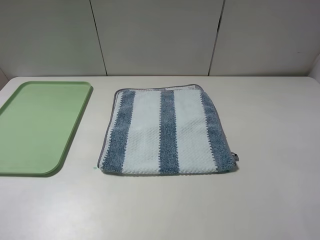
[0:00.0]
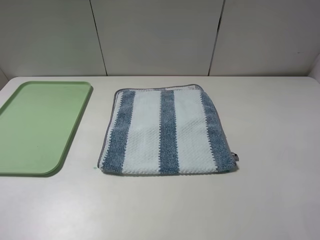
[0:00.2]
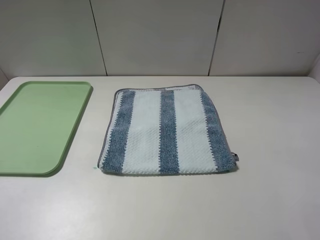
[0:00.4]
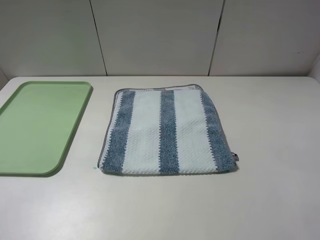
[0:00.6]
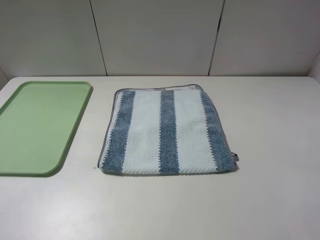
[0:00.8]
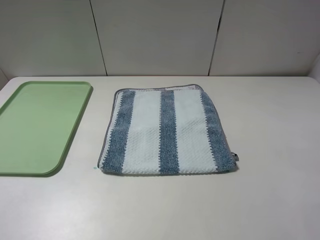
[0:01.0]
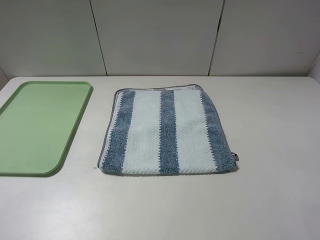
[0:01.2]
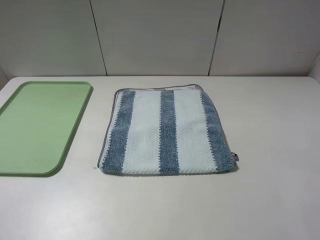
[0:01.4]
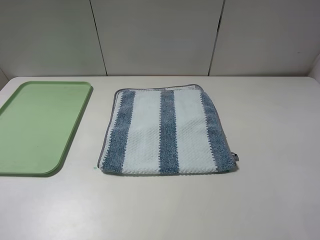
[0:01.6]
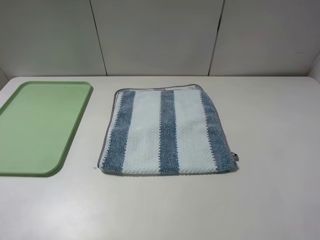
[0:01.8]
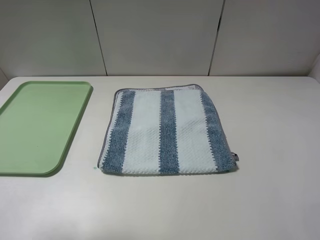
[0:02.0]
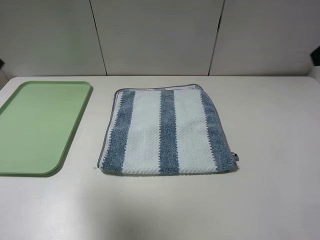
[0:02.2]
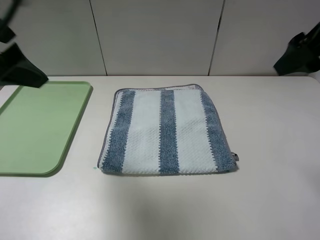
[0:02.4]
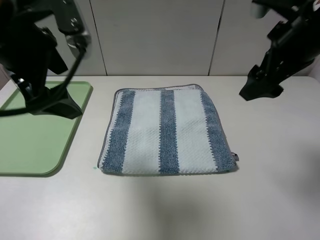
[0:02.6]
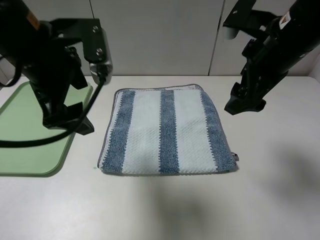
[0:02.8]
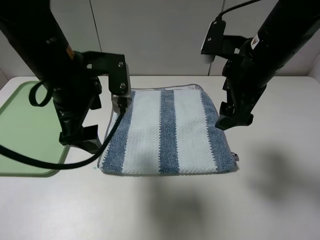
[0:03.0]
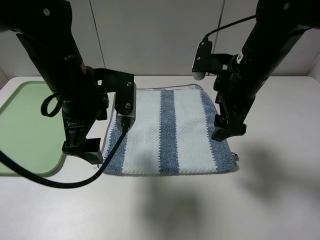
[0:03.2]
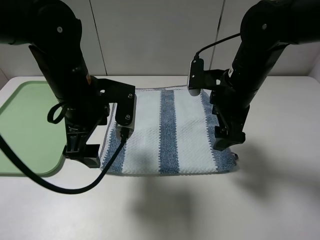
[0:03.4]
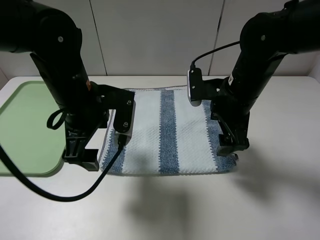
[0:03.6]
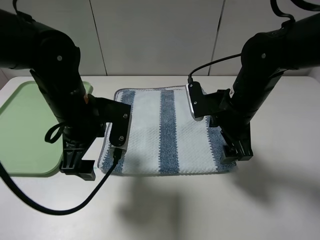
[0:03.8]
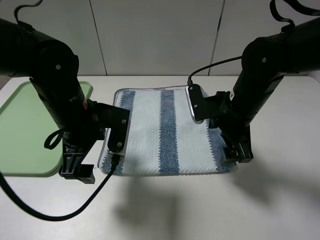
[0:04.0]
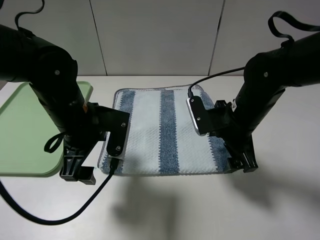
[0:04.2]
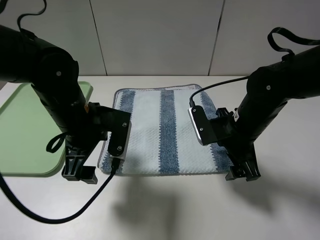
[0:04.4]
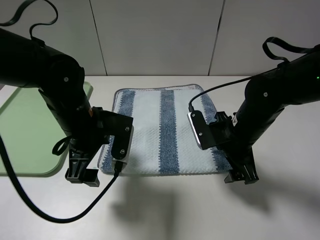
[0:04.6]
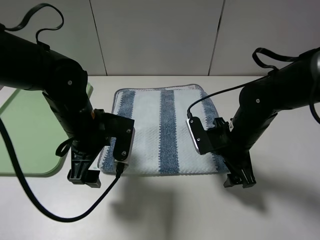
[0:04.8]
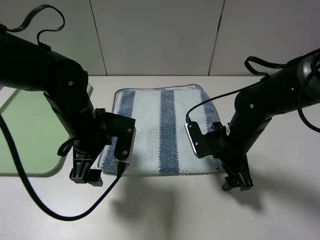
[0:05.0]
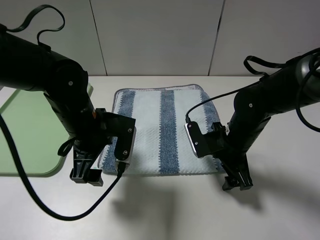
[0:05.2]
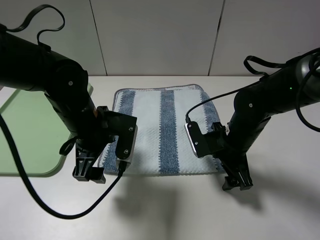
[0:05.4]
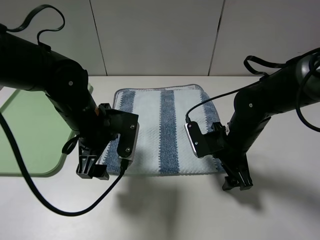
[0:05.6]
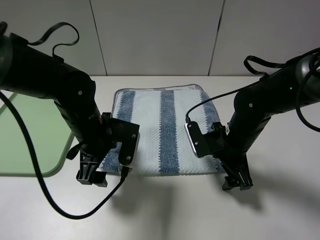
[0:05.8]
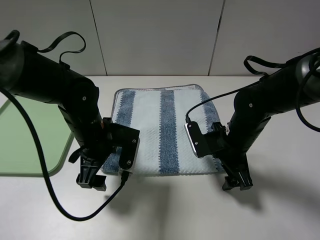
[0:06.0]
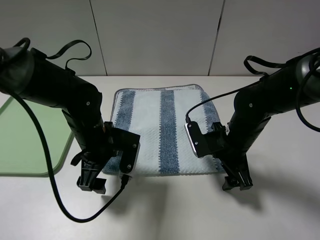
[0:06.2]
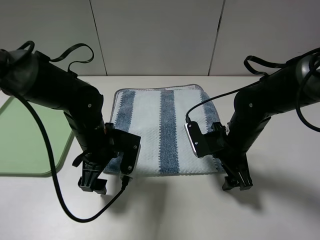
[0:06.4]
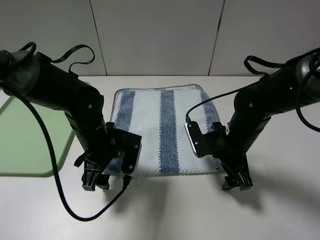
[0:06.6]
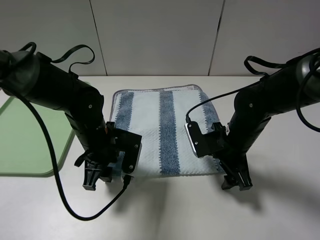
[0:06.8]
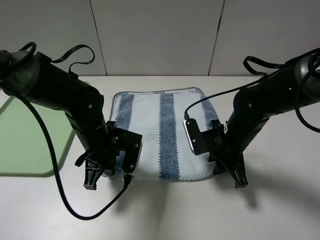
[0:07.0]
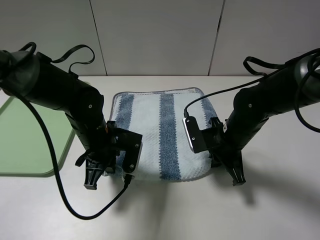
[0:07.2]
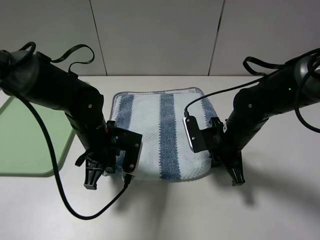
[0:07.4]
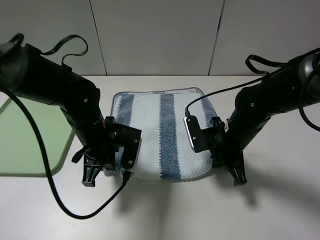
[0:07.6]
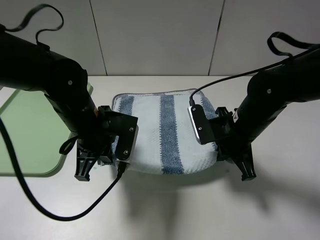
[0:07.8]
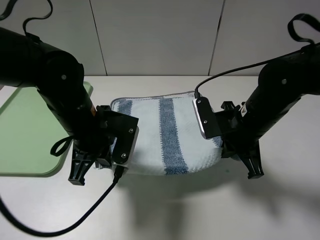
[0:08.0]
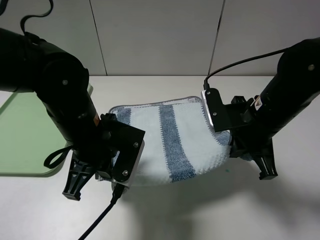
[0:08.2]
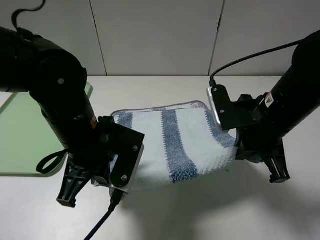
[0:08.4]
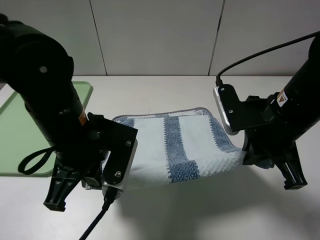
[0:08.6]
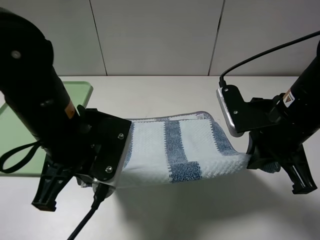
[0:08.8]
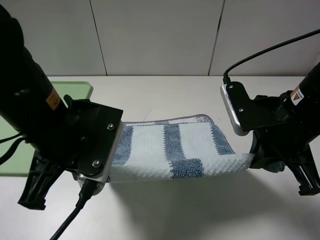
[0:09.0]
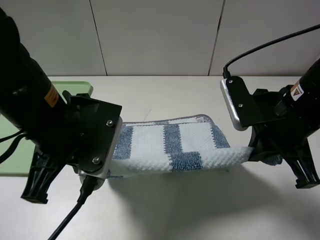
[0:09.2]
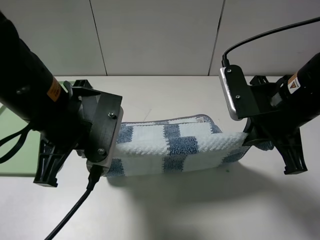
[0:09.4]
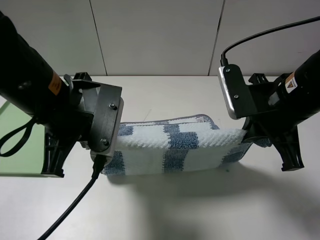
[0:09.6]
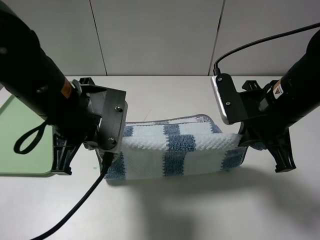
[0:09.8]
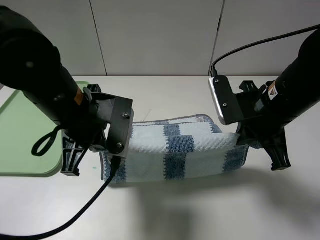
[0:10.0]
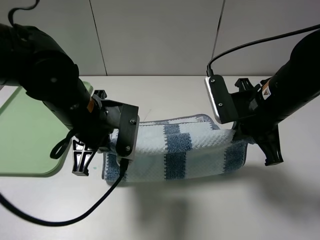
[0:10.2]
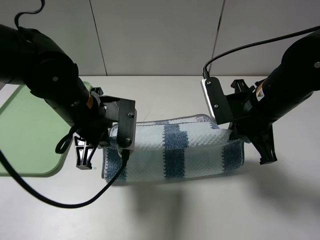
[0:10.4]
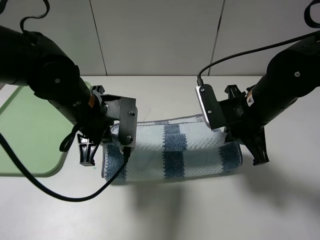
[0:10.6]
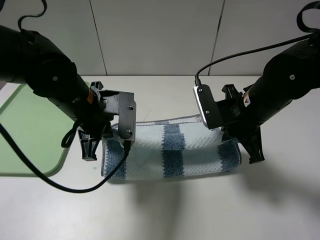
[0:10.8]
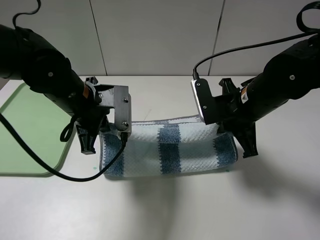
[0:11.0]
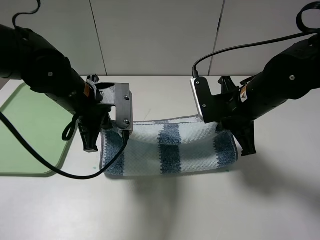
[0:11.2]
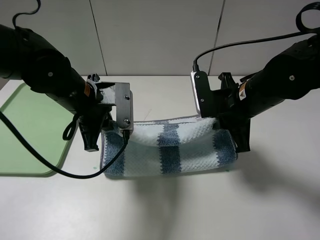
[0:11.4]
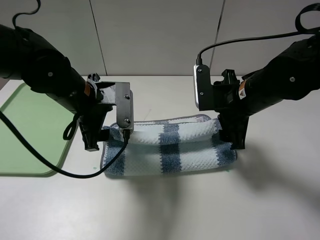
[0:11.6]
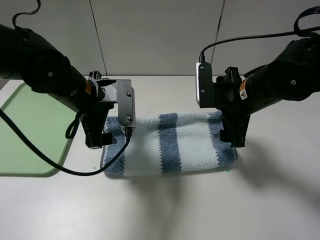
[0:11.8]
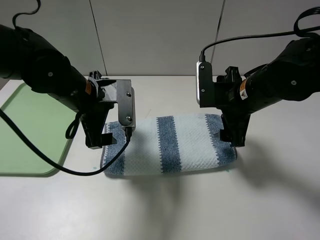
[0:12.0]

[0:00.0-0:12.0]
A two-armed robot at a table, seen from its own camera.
Step, 0:00.0 to 0:07.2: Grasp the blue white towel with the left gripper.
Step, 0:07.4 to 0:11.8: Fold the blue white towel upwards with the left gripper.
0:01.6 to 0:03.0: The left gripper moves forward and to the right, approximately 30 cm; the right gripper goes roughly 30 cm forward and to the left.
0:03.0 to 0:04.4: The two grippers go roughly 10 cm downward.
0:04.4 to 0:06.0: The left gripper is displaced downward by some 5 cm.
0:06.0 to 0:07.6: The left gripper closes up, while the right gripper closes its fingers.
0:07.6 to 0:09.0: Both grippers move upward and backward, about 15 cm.
0:09.0 to 0:10.4: The right gripper travels forward by approximately 5 cm. The left gripper heads forward and downward, covering roughly 10 cm.
0:10.4 to 0:12.0: The right gripper opens its fingers. The left gripper opens.

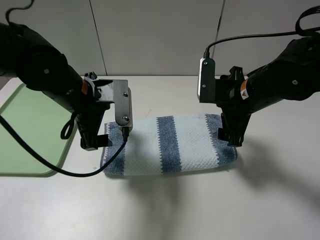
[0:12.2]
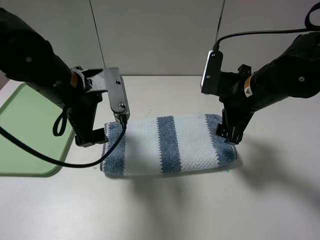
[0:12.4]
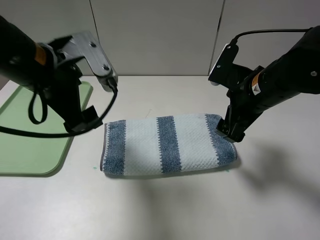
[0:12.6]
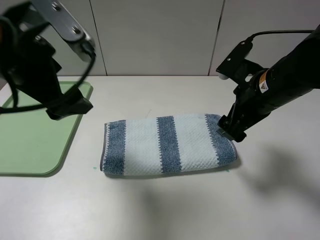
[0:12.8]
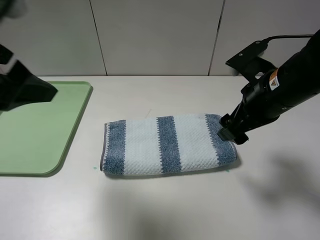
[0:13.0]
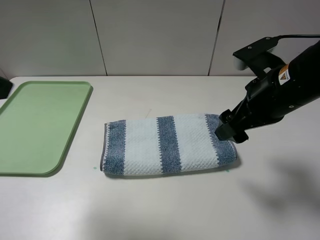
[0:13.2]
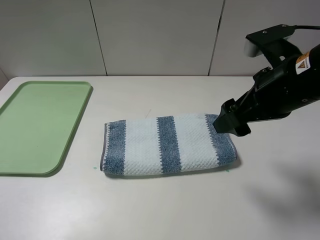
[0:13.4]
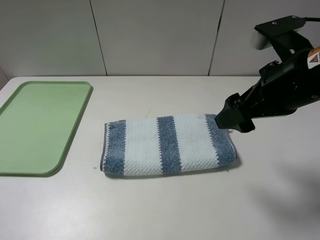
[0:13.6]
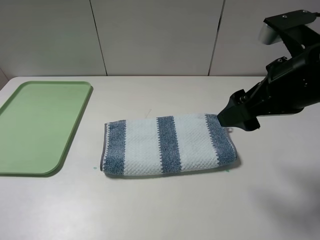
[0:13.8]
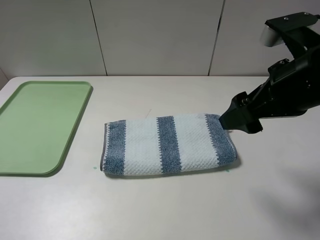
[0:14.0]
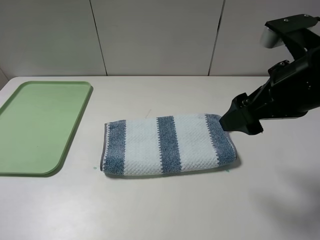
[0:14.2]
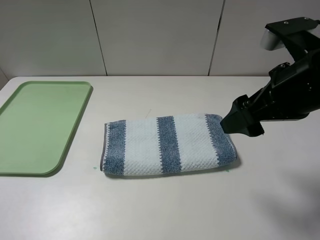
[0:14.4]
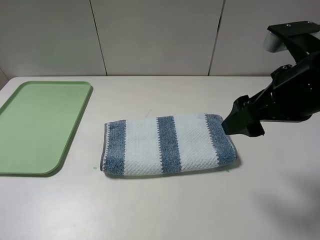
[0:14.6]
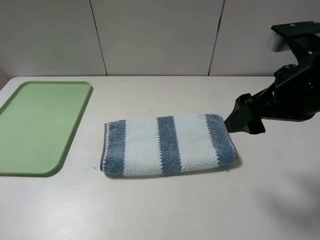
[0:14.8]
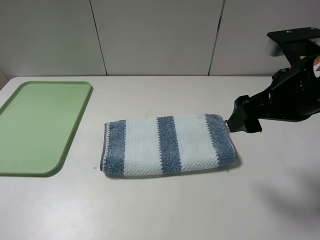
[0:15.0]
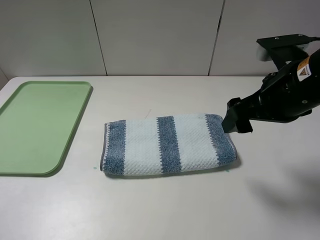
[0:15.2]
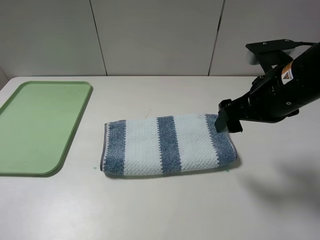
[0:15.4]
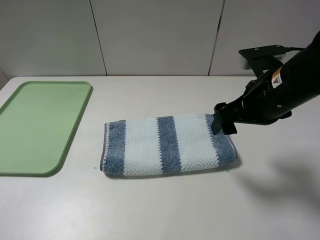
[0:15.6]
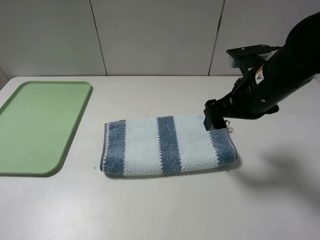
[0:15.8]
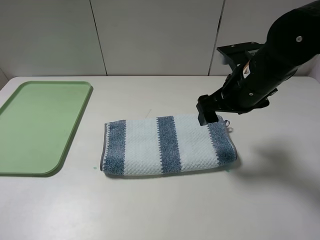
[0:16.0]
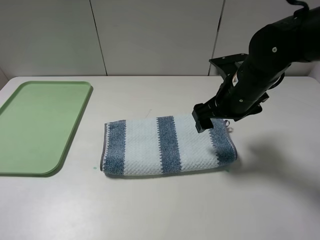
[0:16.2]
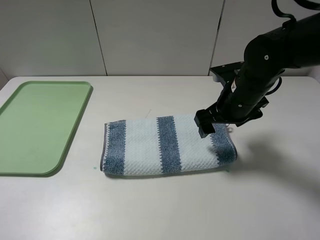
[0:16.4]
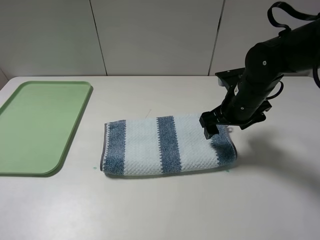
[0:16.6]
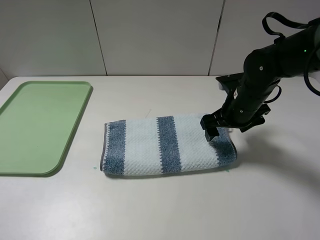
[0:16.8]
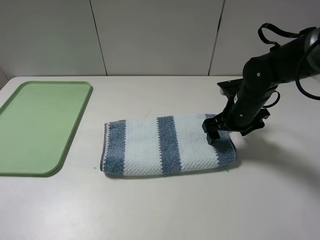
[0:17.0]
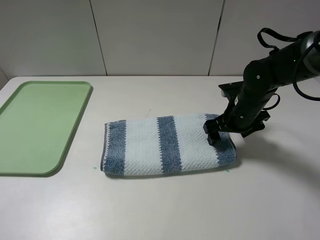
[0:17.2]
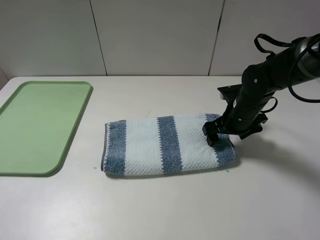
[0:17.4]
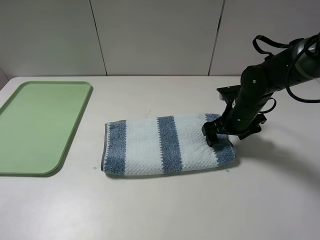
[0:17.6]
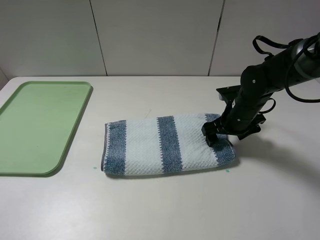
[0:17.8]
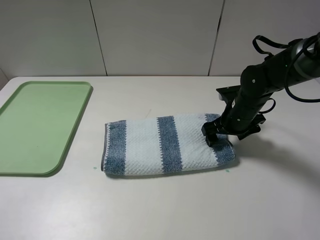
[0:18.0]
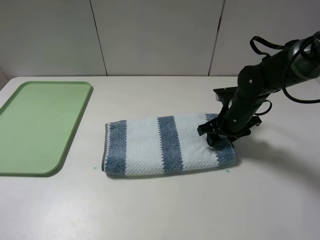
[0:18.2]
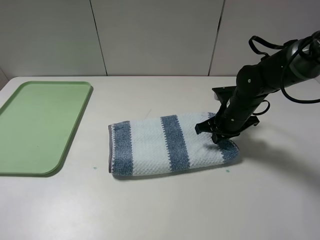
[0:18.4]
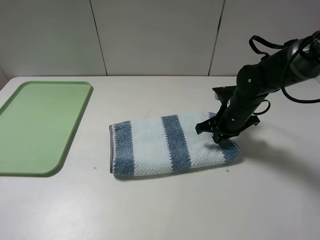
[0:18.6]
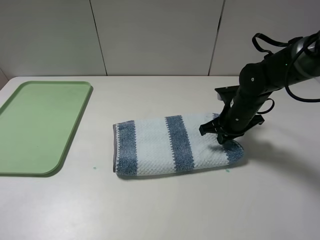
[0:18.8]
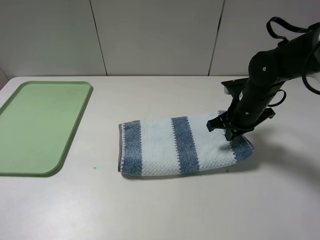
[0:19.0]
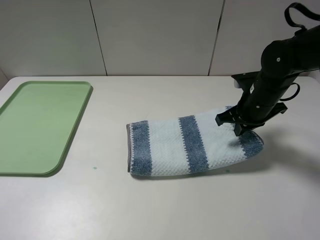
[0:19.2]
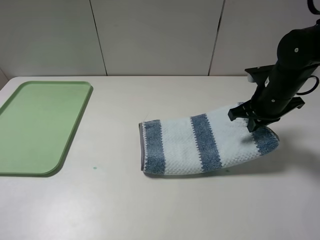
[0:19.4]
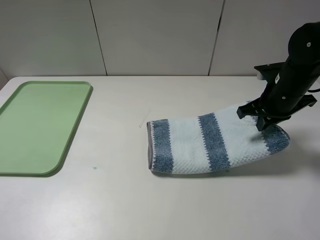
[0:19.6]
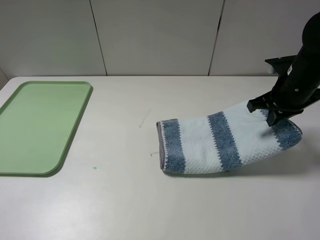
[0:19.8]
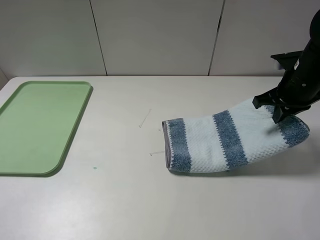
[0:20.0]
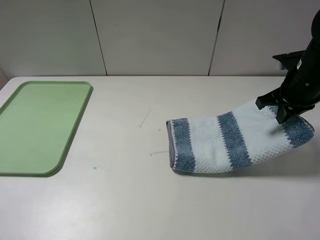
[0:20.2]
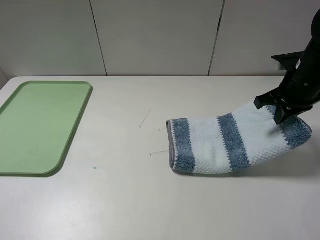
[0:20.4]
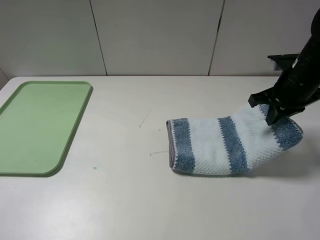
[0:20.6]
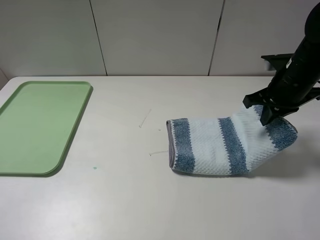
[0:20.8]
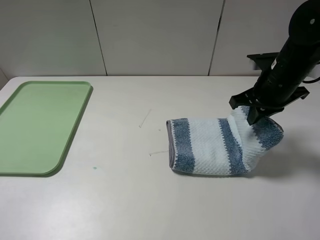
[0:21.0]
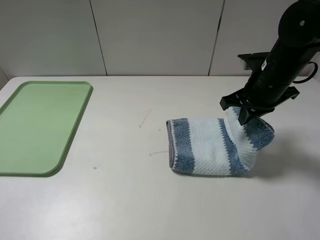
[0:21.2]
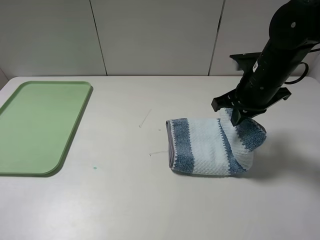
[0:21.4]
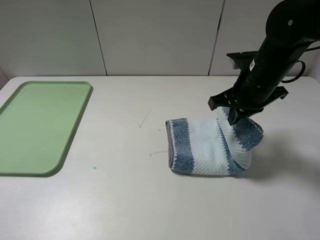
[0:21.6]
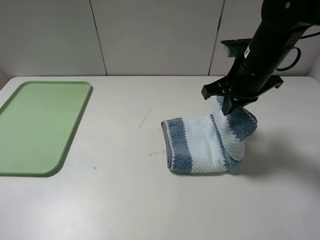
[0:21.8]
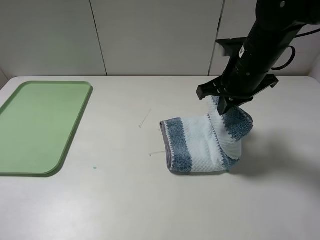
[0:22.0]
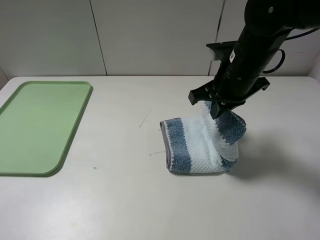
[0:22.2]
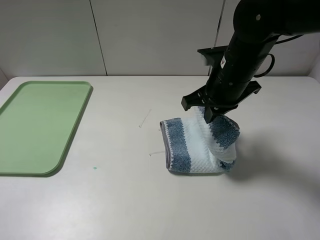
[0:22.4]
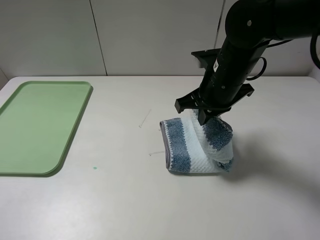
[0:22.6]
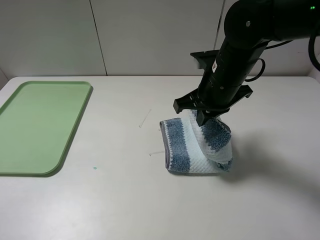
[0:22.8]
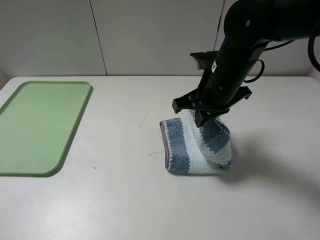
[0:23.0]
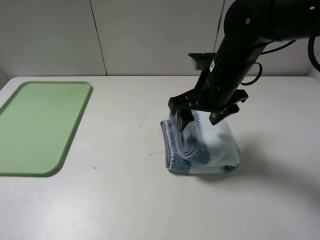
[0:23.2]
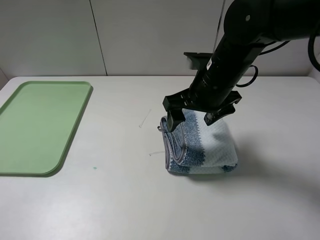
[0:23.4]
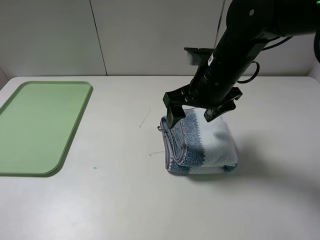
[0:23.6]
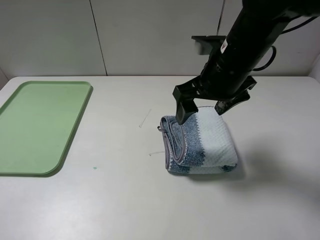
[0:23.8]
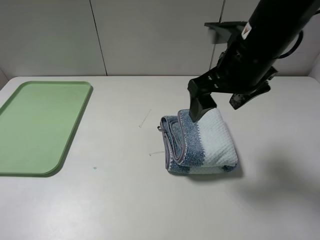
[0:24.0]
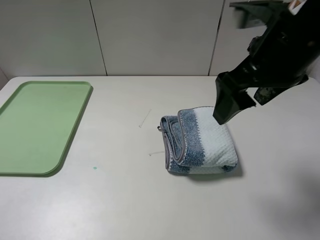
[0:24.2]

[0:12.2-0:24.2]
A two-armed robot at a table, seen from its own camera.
Step, 0:12.2 to 0:18.4: Grasp the blue white towel with the right gripper.
Step, 0:18.6 to 0:23.6: Fold the blue white towel from right to left with right gripper.
0:12.2 to 0:13.8: The right gripper is displaced upward and backward by about 10 cm; the left gripper moves backward, to the left and upward, some 35 cm.
0:15.2 to 0:16.6: The right gripper moves downward and forward, about 15 cm.
0:16.6 to 0:18.2: The right gripper moves downward, approximately 5 cm, and closes its fingers.
0:18.2 to 0:19.8: The right gripper shifts approximately 15 cm upward and to the right, and closes up.
0:19.8 to 0:21.2: The right gripper travels to the left by about 5 cm.
0:21.2 to 0:22.6: The right gripper moves to the left, approximately 10 cm.
0:22.6 to 0:24.2: The right gripper heads upward and backward, covering roughly 15 cm, and opens its fingers.
